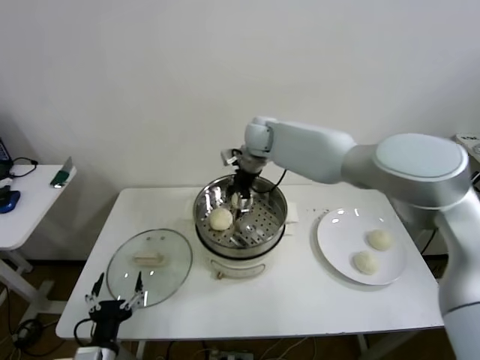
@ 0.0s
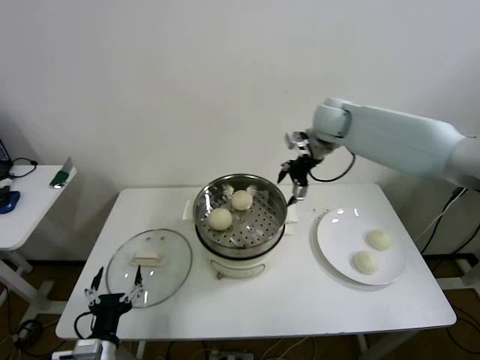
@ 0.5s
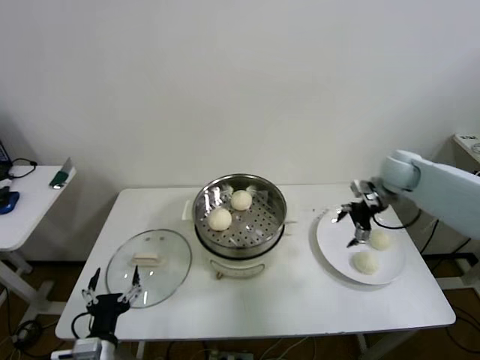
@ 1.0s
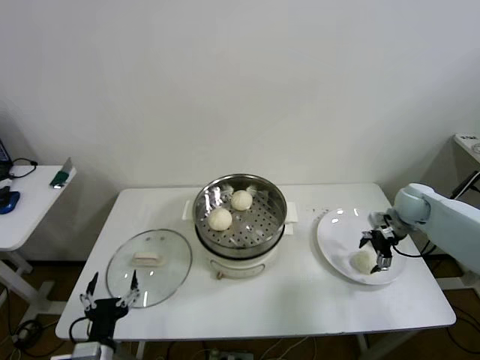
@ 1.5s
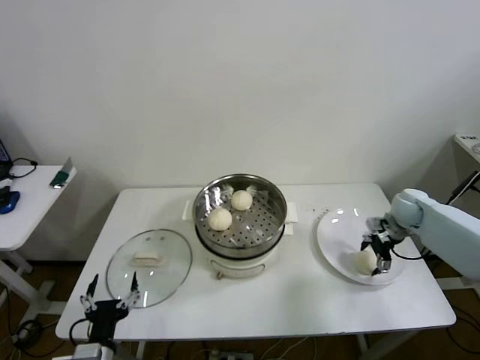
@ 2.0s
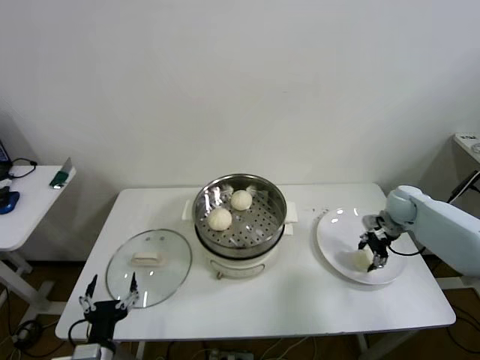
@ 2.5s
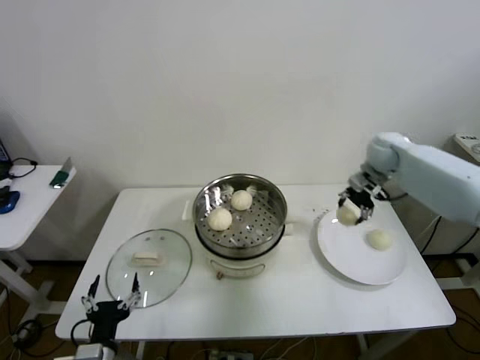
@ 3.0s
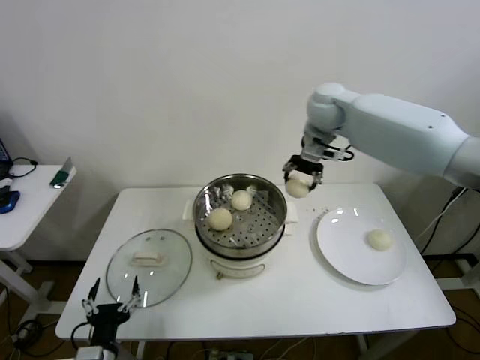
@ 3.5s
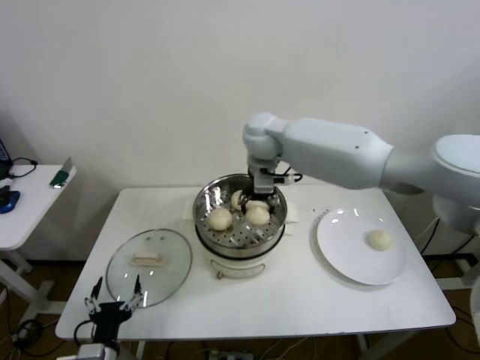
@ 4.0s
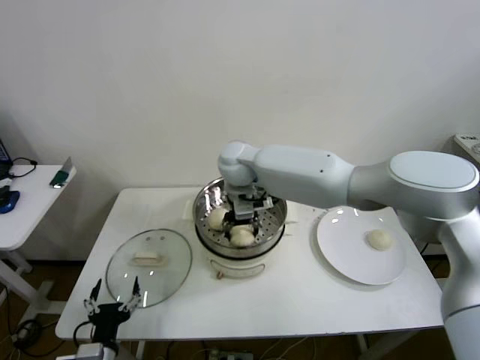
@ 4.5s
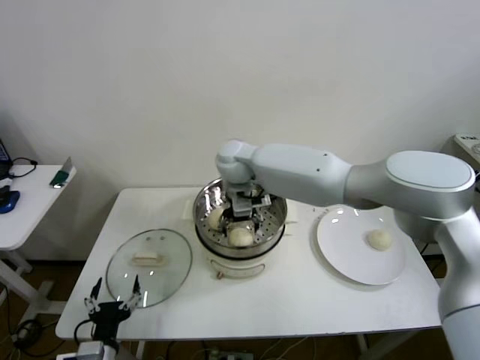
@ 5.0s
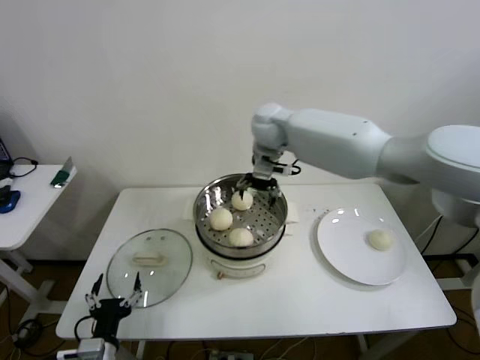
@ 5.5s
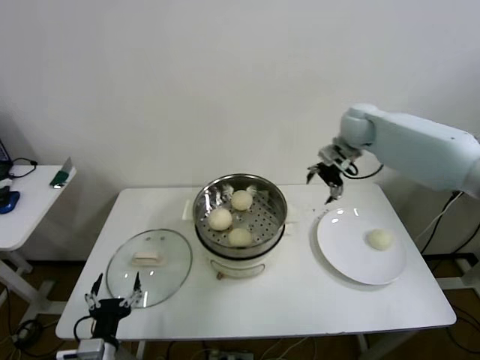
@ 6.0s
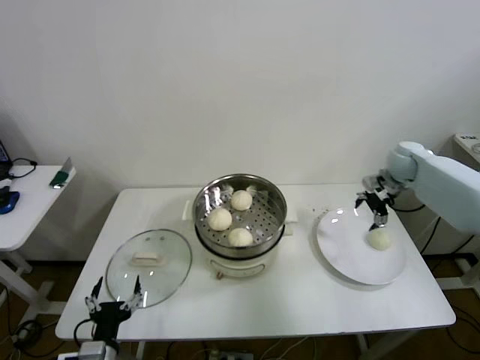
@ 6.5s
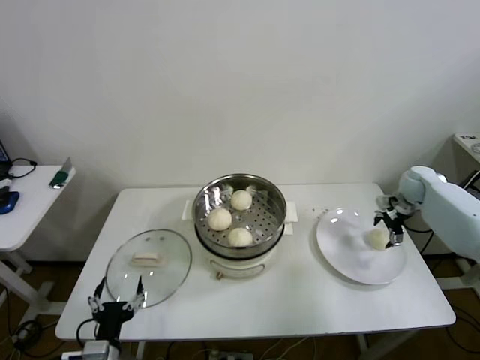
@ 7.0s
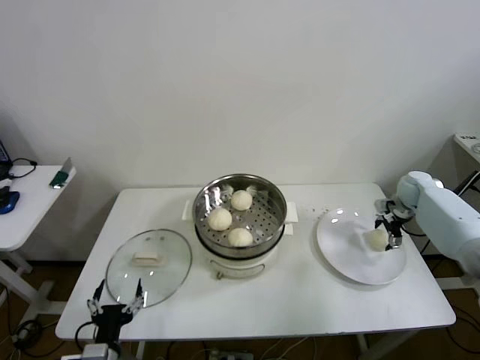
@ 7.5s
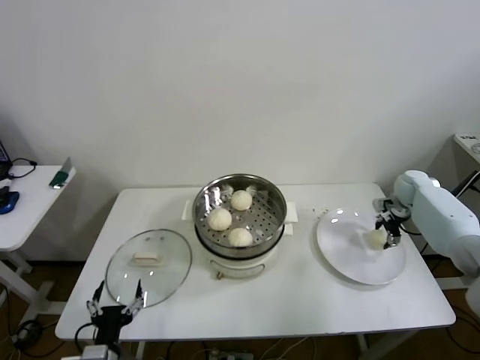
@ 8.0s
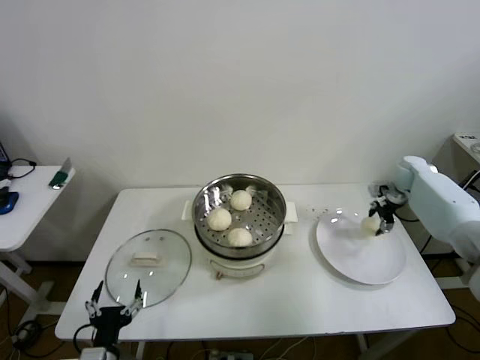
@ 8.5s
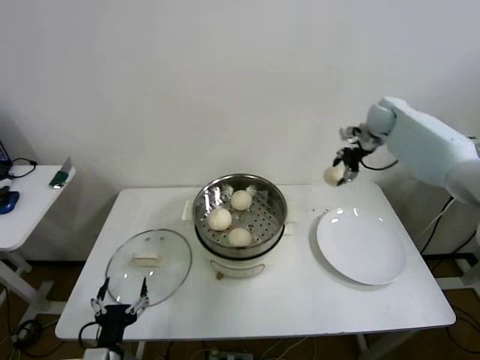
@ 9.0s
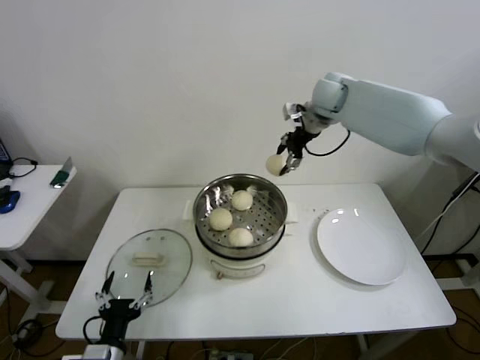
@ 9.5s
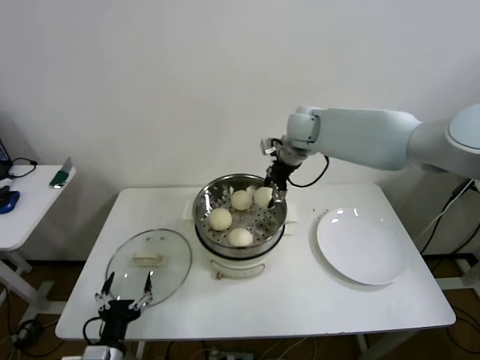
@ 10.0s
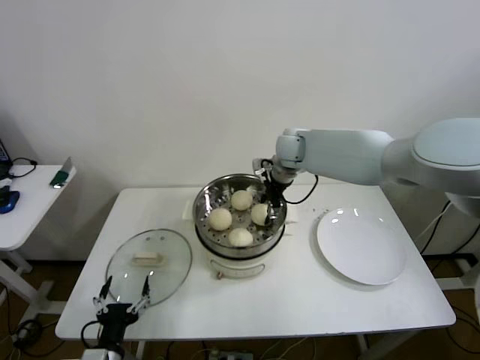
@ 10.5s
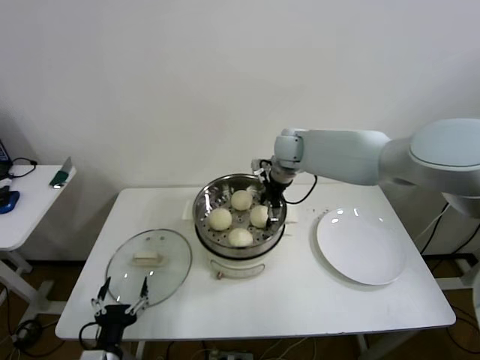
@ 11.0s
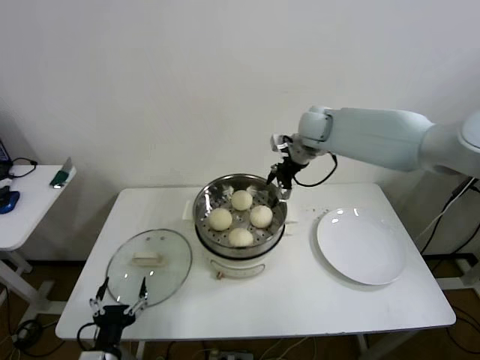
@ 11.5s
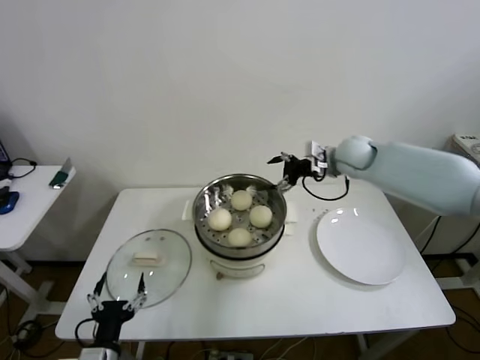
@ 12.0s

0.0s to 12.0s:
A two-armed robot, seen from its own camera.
Step, 0.0s to 2.0s: Grasp the baozi in the plate with right gripper.
Step, 2.5s to 5.0s: Place the baozi on the steamer with right gripper.
Step, 5.5s to 8.0s: Grasp the baozi in the plate with right gripper.
Step, 8.5s to 11.0s: Place the baozi on the steamer with right gripper.
0.0s to 2.0s: The right gripper goes some 40 cm to the right and downward.
2.0s to 4.0s: The right gripper travels to the left and upward by approximately 40 cm, and closes up.
4.0s to 6.0s: The right gripper goes about 25 cm to the right, and opens up.
6.0s to 8.0s: The right gripper is displaced downward and to the right by some 25 cm, and closes its fingers.
8.0s to 10.0s: The right gripper moves to the left and upward, approximately 40 cm.
10.0s to 12.0s: The right gripper moves to the right and downward, about 15 cm, and opens its fingers.

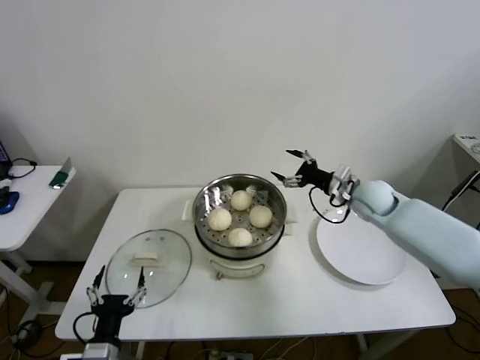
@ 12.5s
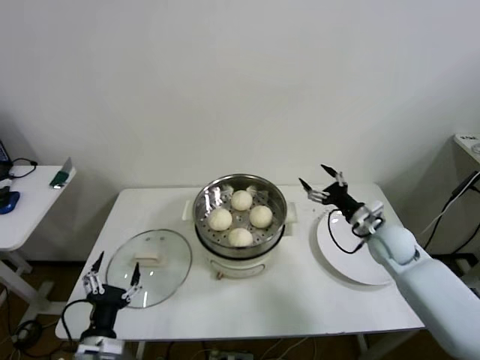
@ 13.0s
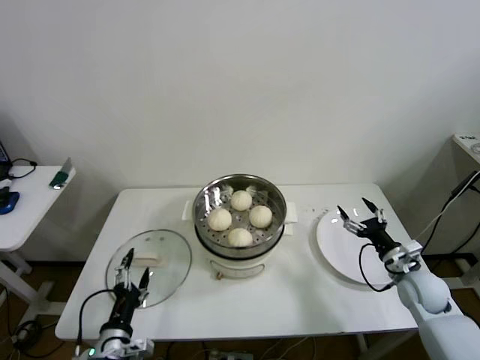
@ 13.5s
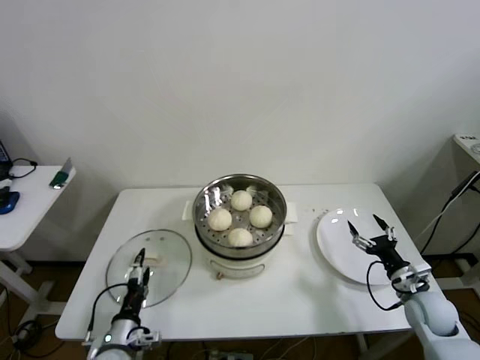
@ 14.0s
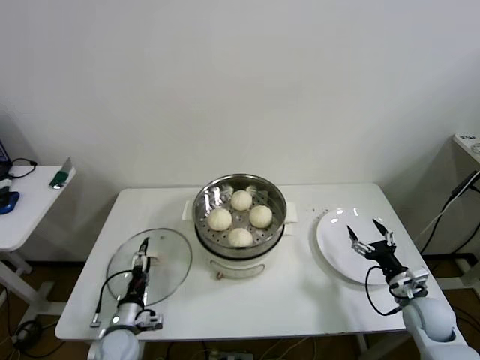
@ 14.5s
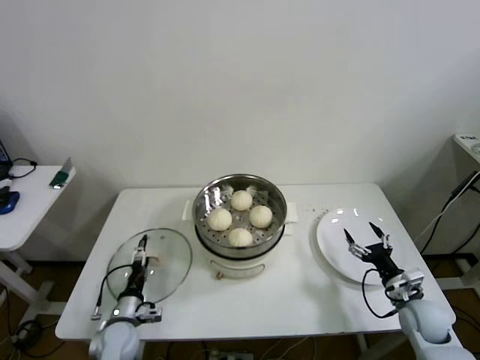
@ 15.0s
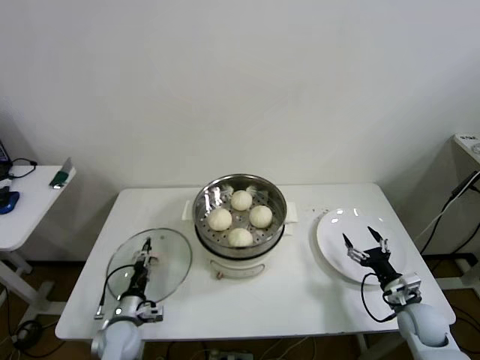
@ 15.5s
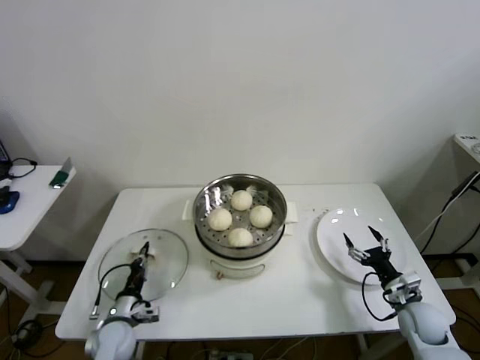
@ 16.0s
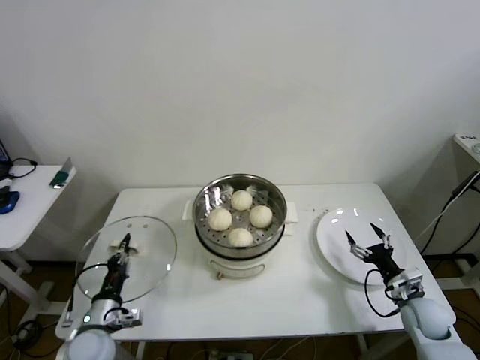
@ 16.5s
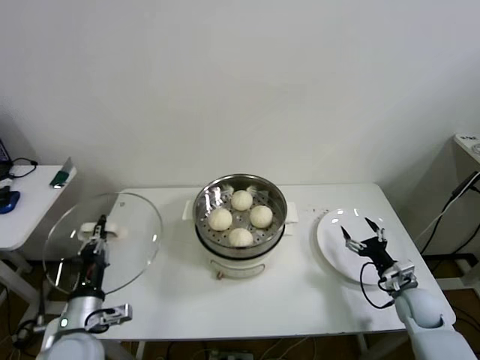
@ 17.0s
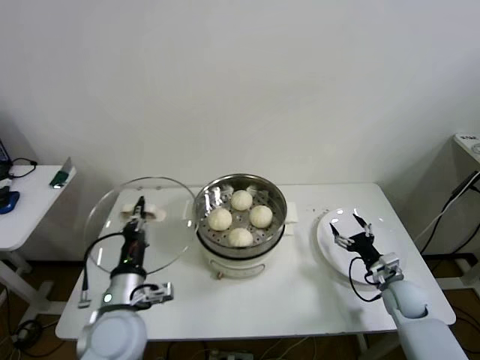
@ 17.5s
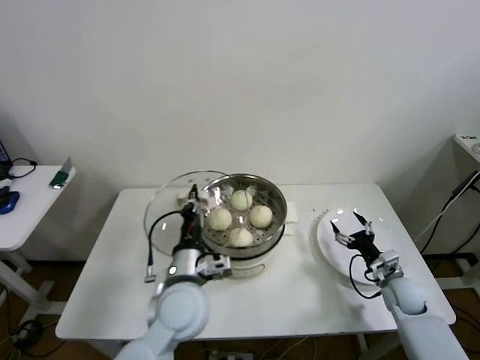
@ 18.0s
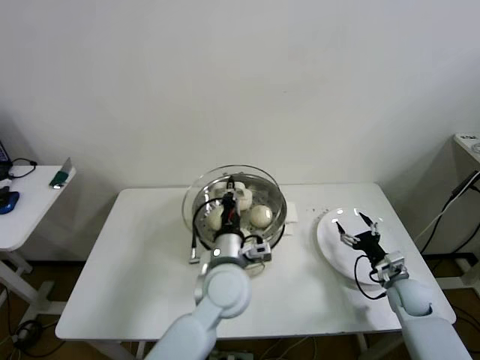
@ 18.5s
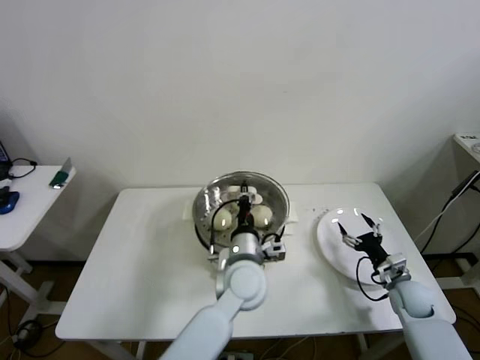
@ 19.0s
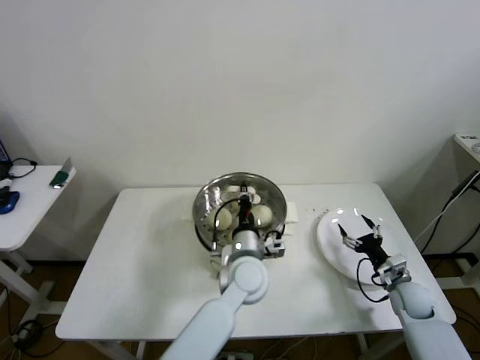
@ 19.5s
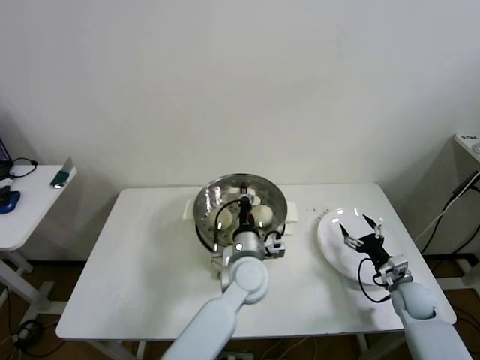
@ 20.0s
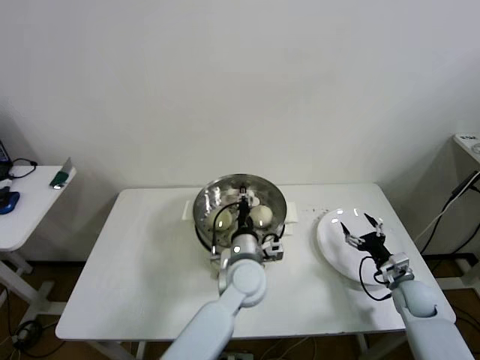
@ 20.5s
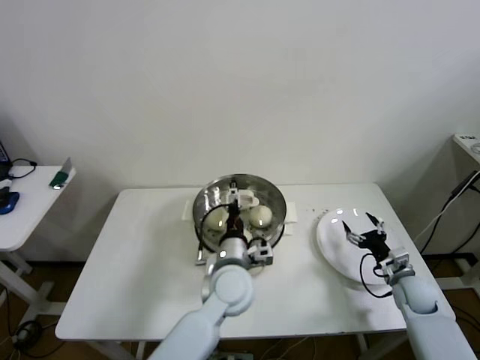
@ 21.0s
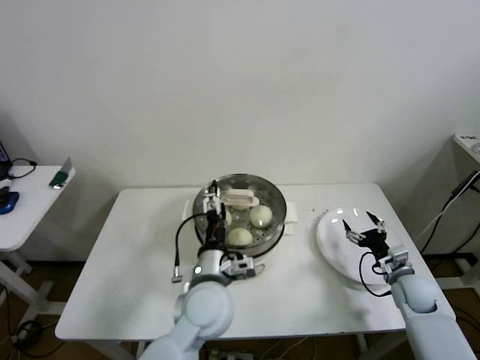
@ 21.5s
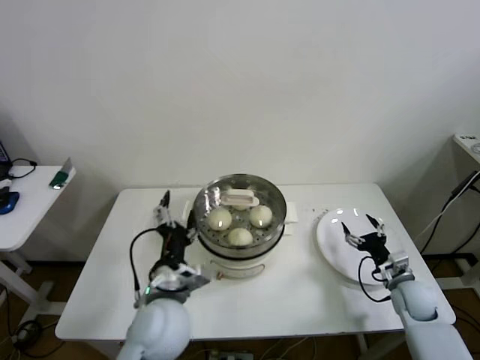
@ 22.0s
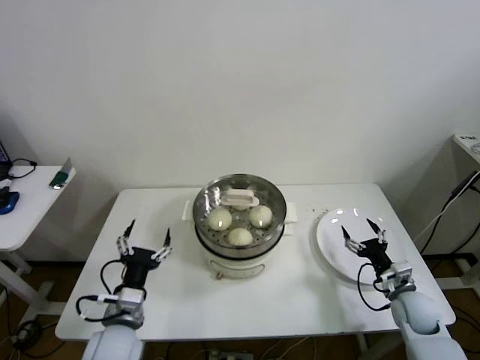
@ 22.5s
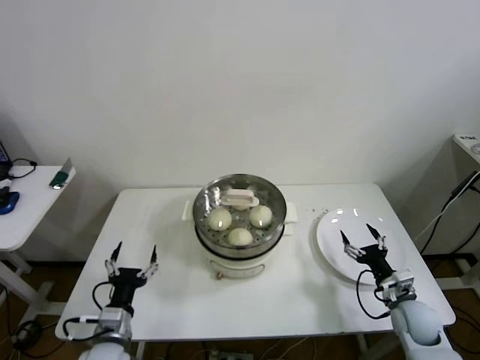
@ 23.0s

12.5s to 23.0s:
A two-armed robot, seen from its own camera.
Step, 12.5s to 15.5s: Grasp the pot lid with left gripper.
Step, 16.0s to 21.0s: Place the pot lid on the steamer with left gripper.
12.5s to 14.5s: The left gripper shifts about 15 cm forward and downward; the right gripper moves backward, downward and to the right, some 30 cm.
14.5s to 16.5s: The left gripper moves upward, approximately 5 cm, and closes.
16.5s to 19.0s: The left gripper goes approximately 35 cm to the right, while the right gripper changes place by about 5 cm.
19.0s to 21.0s: The left gripper opens its fingers.
21.0s to 23.0s: The left gripper moves to the left and backward, some 30 cm. The right gripper shifts some 5 cm backward.

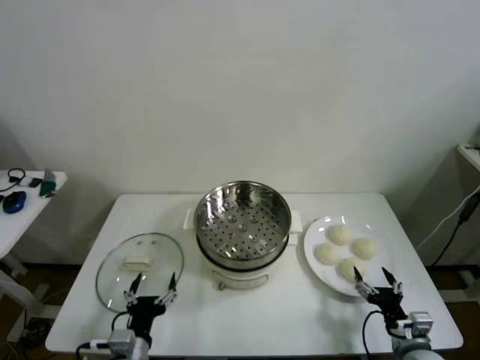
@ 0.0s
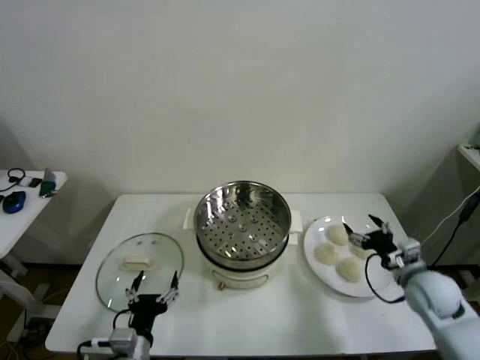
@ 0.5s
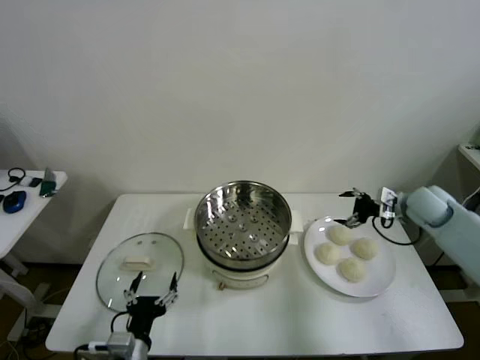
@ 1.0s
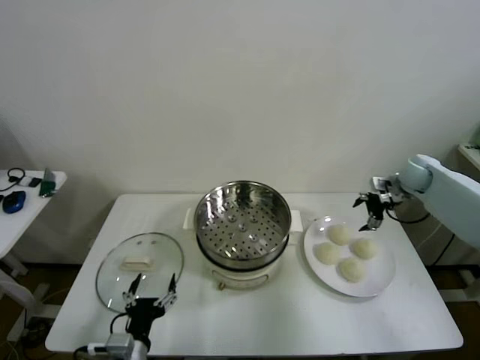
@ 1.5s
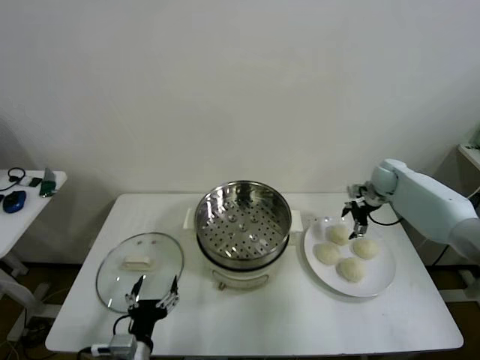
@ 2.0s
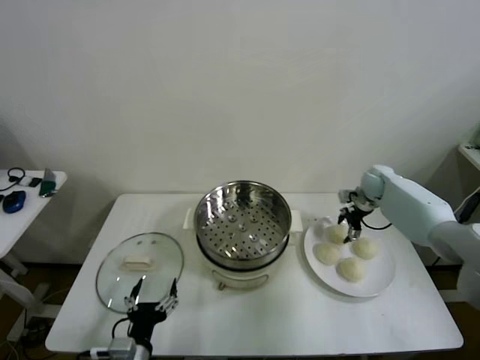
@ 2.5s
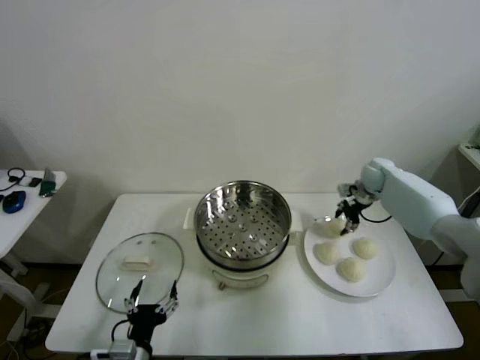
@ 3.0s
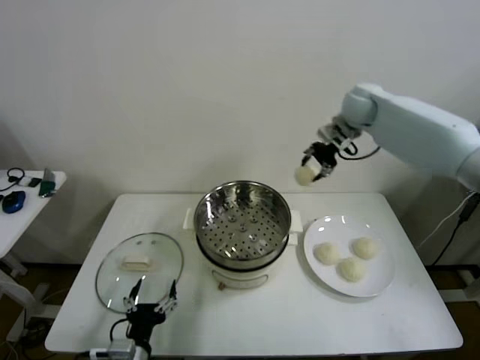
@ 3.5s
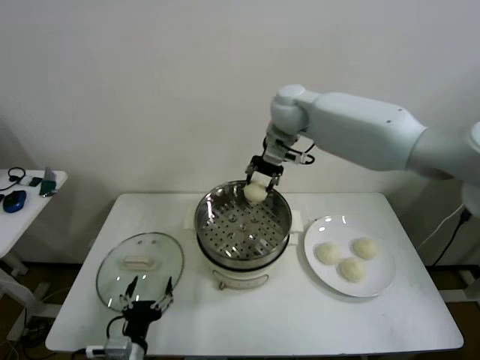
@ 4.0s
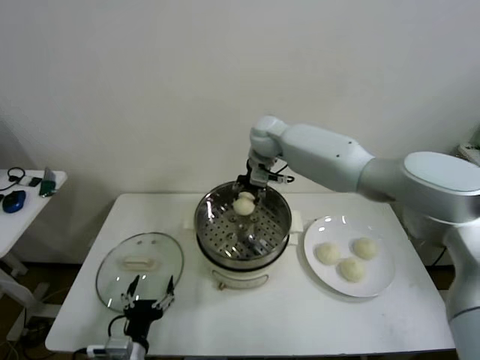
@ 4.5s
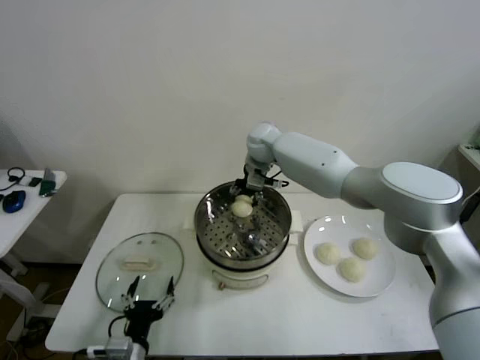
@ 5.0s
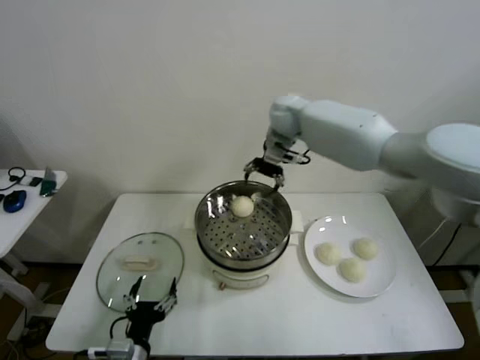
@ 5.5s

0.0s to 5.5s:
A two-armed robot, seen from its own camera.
Step, 0.0s to 2.5s: Grasp the baozi in the plate with right gripper.
Step, 3.0s to 5.0s: Place the baozi on the steamer with right gripper.
2.0s to 3.5s: The right gripper travels upward and to the left by approximately 30 cm, and closes its fingers.
3.5s to 5.5s: The right gripper moves to the left, about 10 cm, and opens up.
